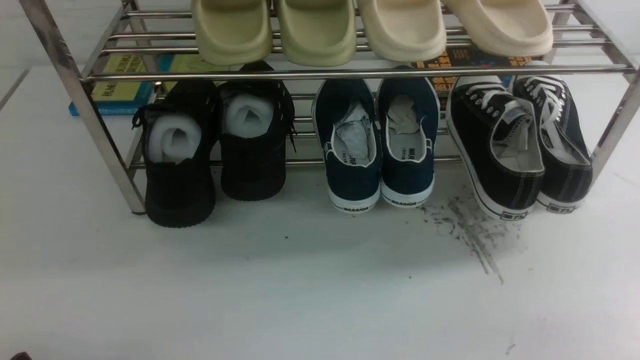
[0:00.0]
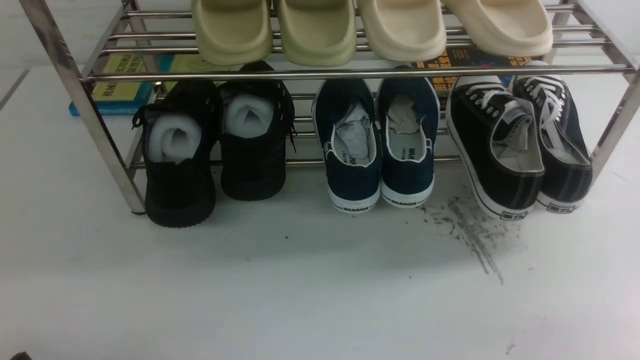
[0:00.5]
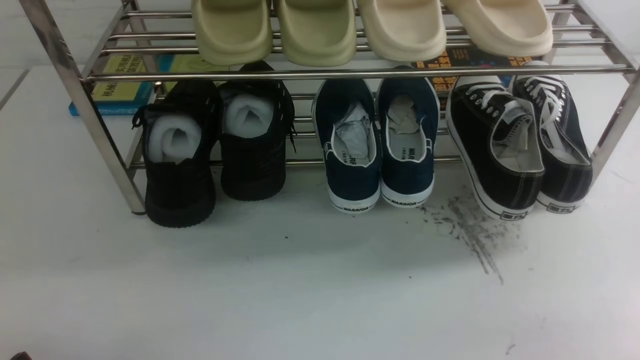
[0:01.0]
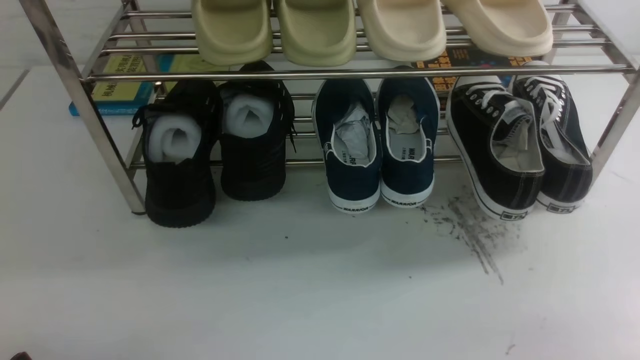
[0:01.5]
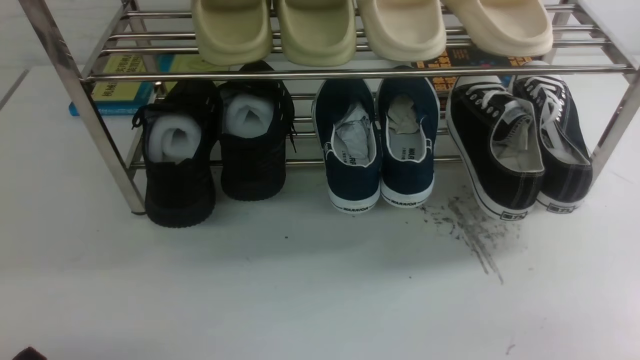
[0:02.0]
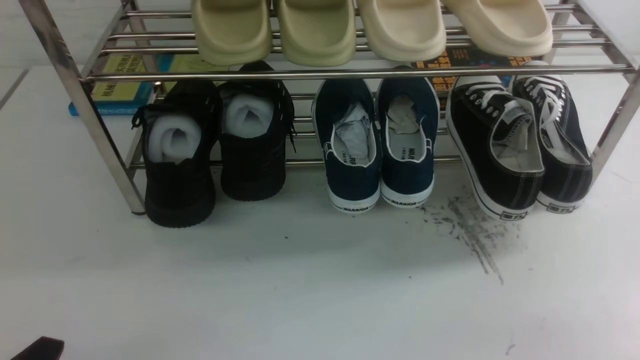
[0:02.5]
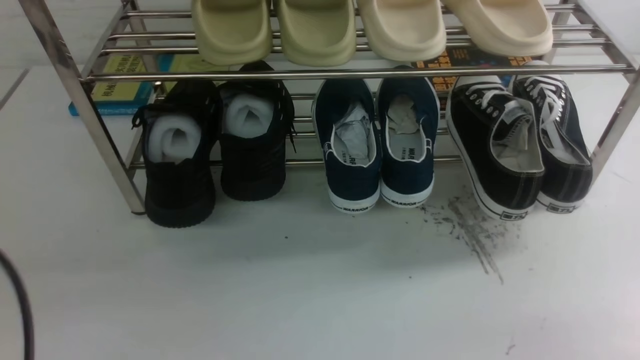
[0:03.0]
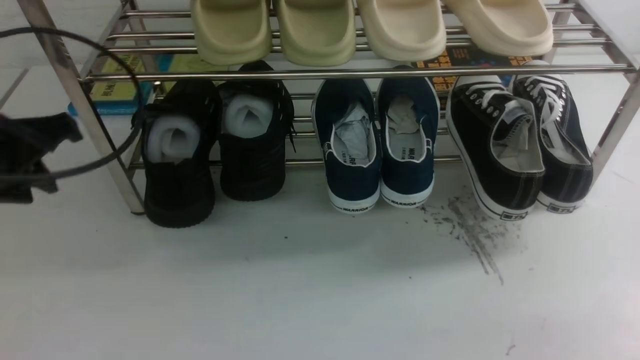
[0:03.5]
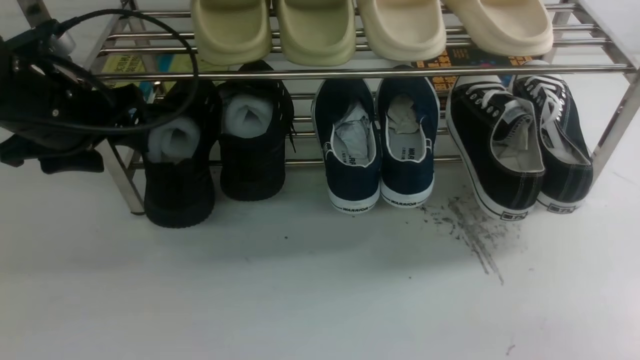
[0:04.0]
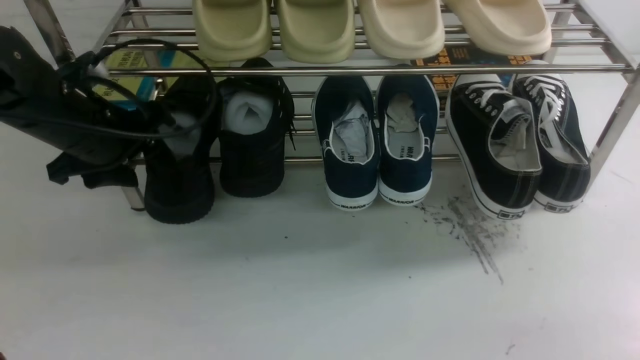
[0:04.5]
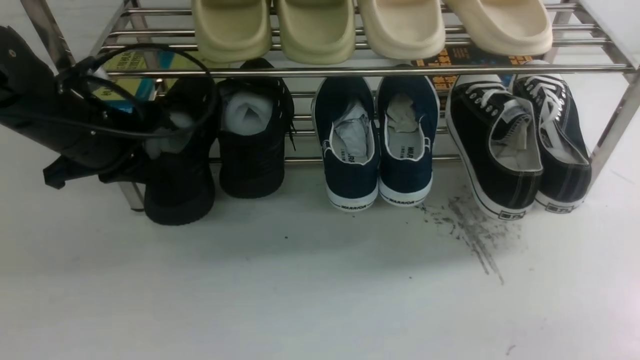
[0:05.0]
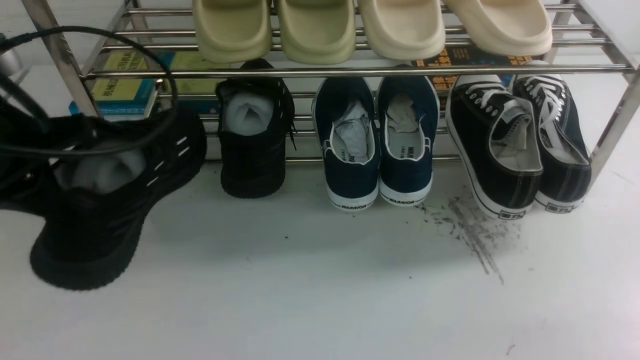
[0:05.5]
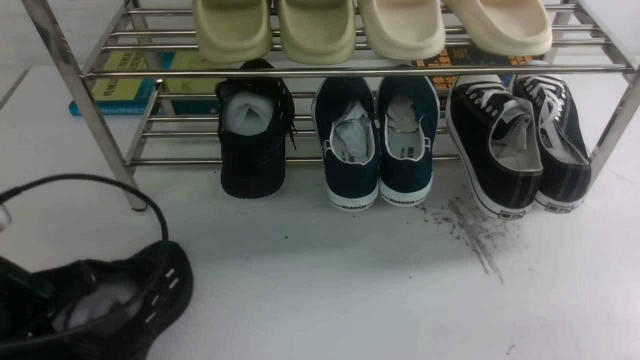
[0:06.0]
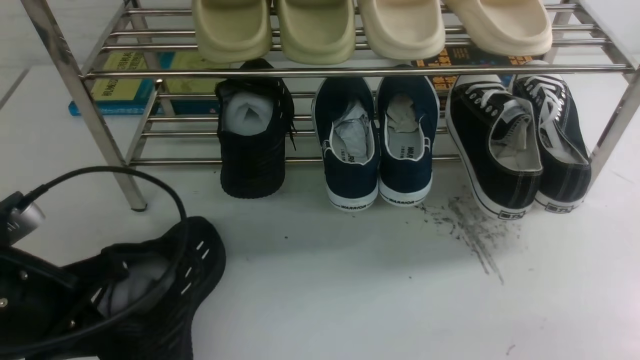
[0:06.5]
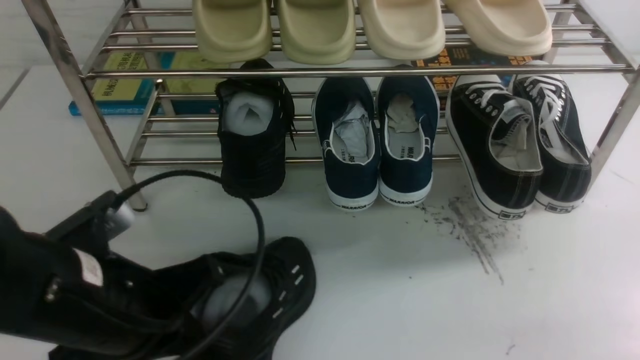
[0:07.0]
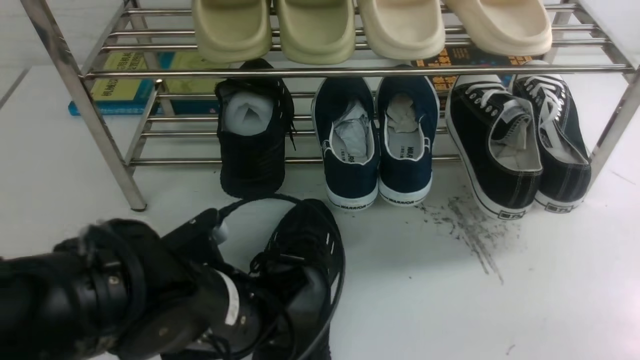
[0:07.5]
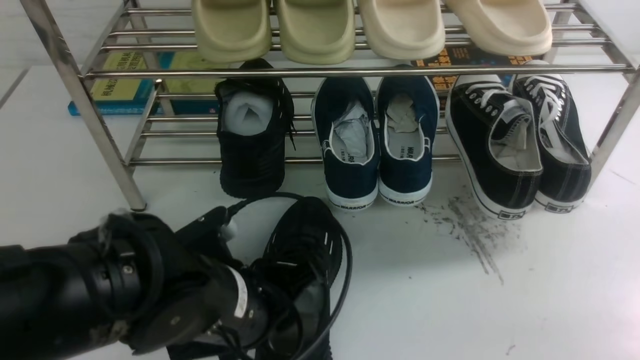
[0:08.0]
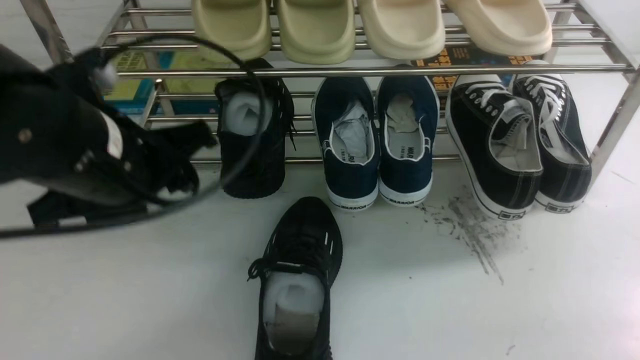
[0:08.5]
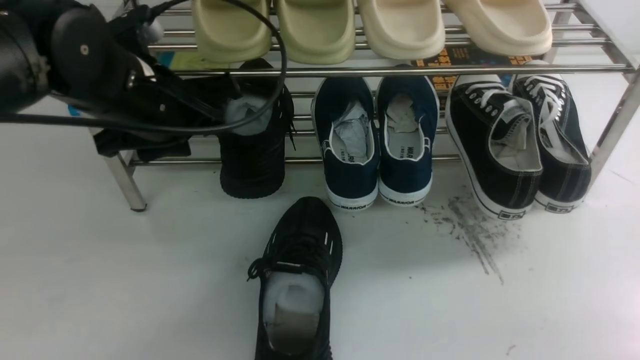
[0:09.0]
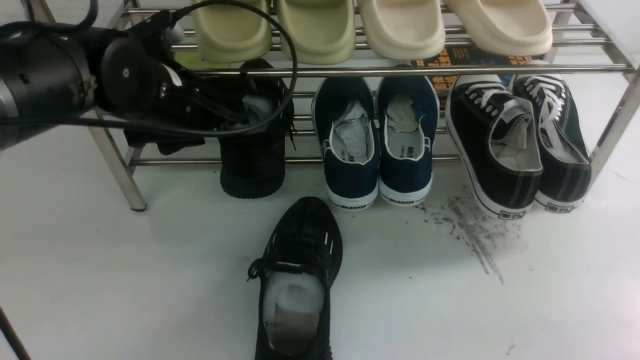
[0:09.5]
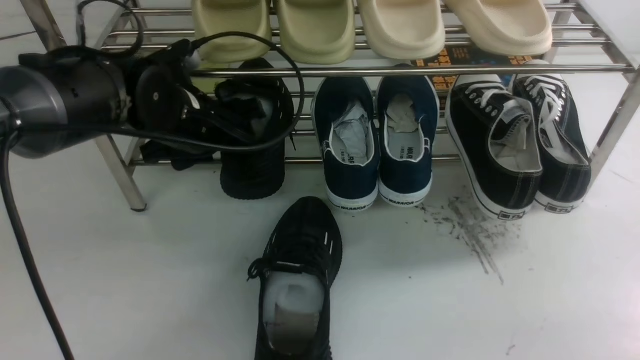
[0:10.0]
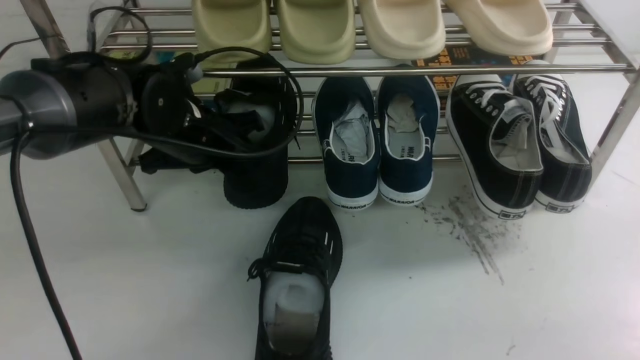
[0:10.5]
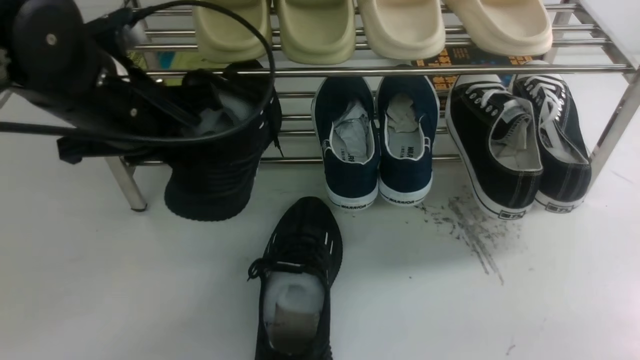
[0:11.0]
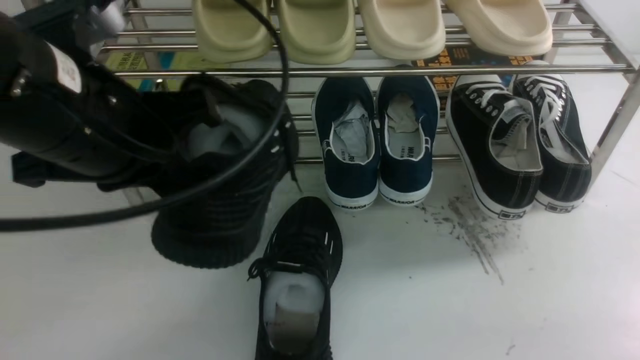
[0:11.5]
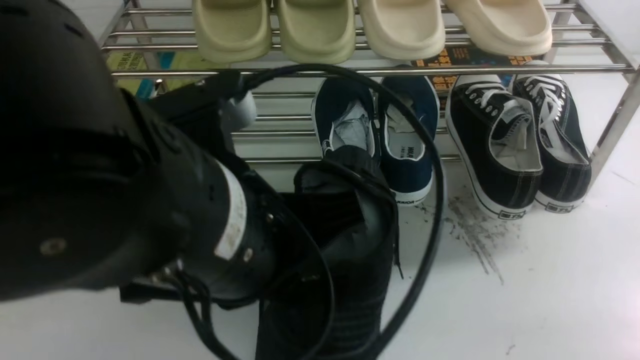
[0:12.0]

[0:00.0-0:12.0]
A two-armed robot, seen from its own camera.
Step, 0:00.0 to 0:05.0: use the left arm to clamp a shoe on the left side of the shoe rack.
Step, 0:05.5 to 0:08.0: Use your left arm to remove the clamped shoe from the shoe rack and put it down.
Step, 0:08.5 to 0:10.5: use the left arm to clamp a shoe on the left side of the shoe rack.
0:02.0 to 0:04.0: The left gripper travels forward and upward by roughly 30 cm, and opens its fingers.
0:04.0 to 0:06.0: The left gripper heads backward, covering roughly 15 cm, and closes its fingers.
0:06.0 to 0:08.0: The left gripper travels to the right by approximately 15 cm, and opens its fingers.
0:08.0 to 0:10.0: The left gripper is displaced forward by roughly 20 cm.
0:10.0 to 0:12.0: The left gripper goes roughly 25 cm backward and upward, and closes up.

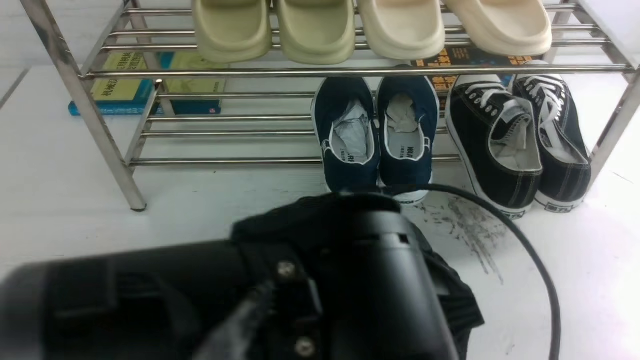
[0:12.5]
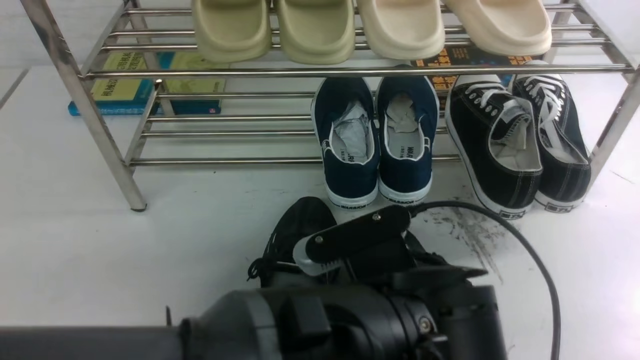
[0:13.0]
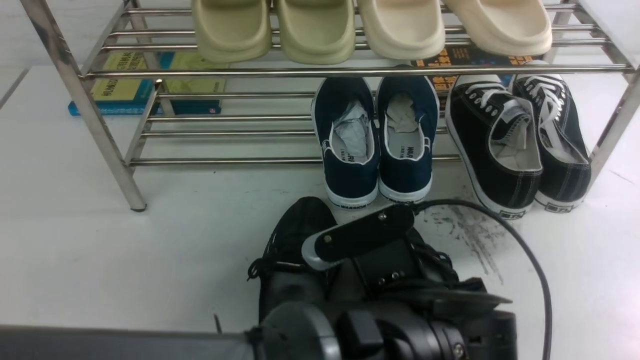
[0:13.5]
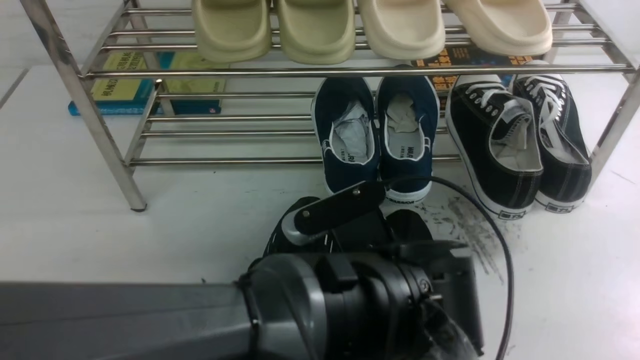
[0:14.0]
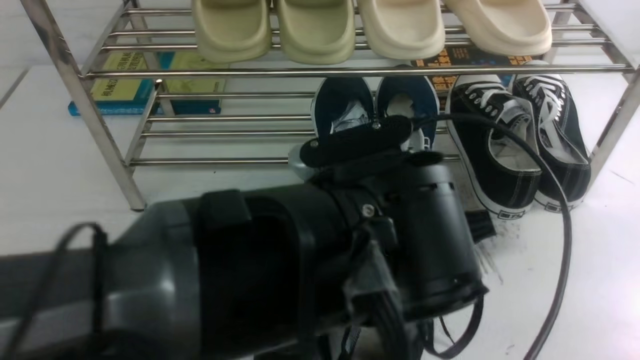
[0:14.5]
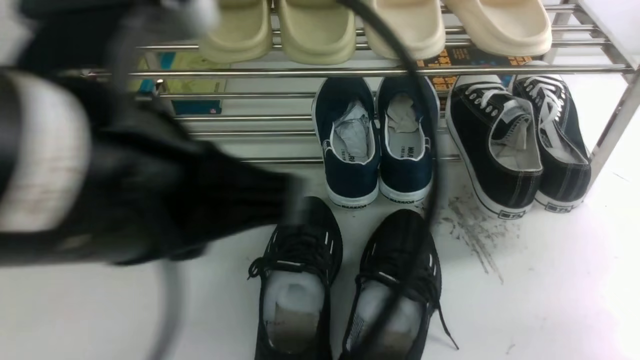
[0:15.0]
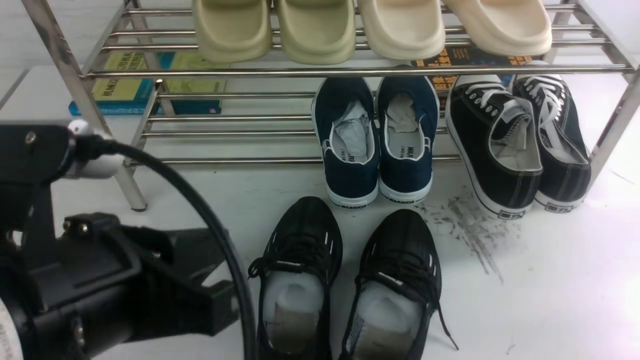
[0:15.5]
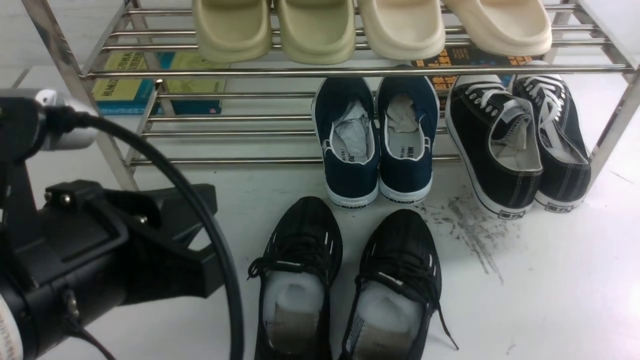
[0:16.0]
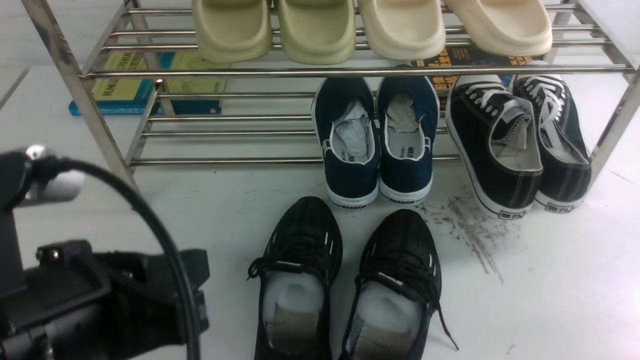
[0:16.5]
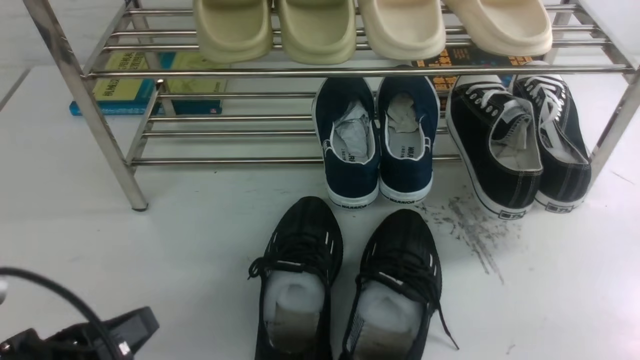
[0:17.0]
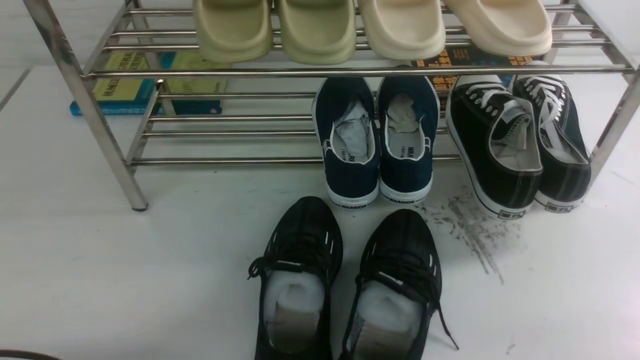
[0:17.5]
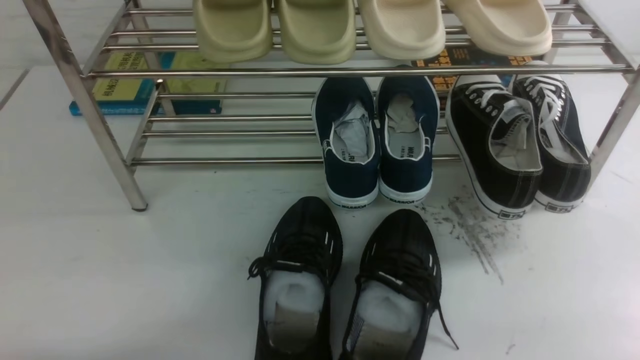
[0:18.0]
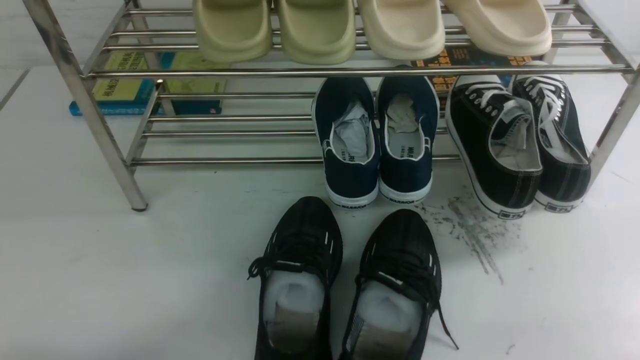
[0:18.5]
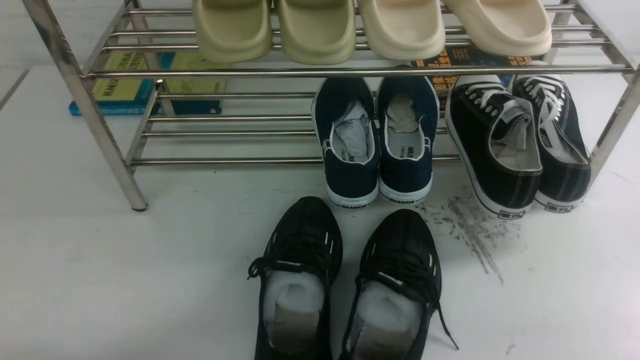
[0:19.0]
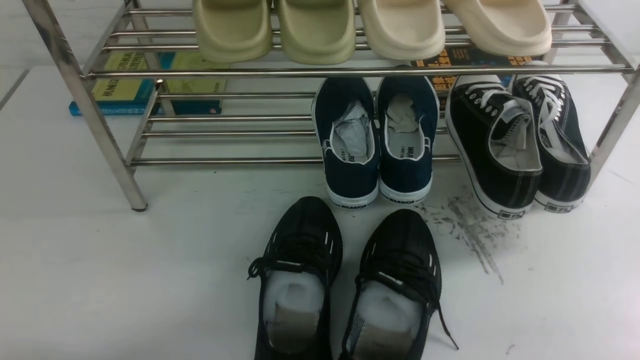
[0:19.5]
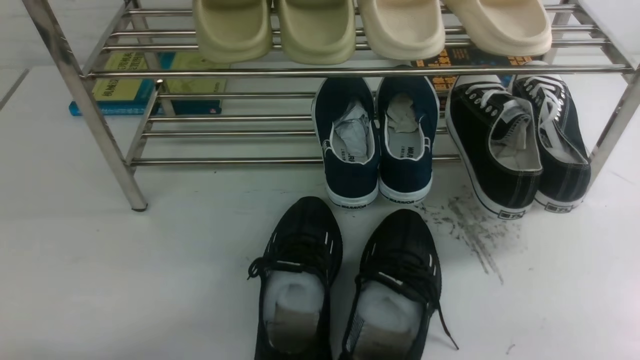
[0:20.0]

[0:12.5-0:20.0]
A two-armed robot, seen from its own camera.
0:12.5 to 0:14.5: The left gripper moves some 5 cm downward and comes back, and opens up.
0:14.5 to 0:16.5: The left gripper moves to the left, roughly 20 cm, and closes its fingers.
0:16.5 to 0:18.0: The left gripper goes some 20 cm downward and to the left.
